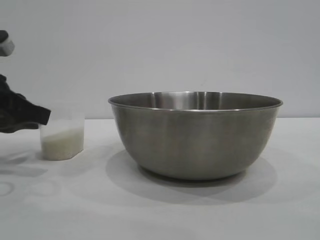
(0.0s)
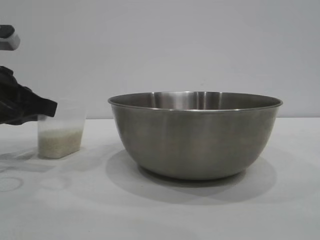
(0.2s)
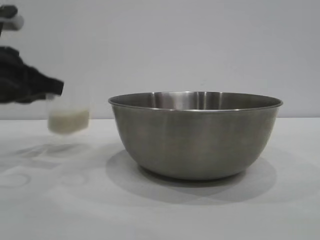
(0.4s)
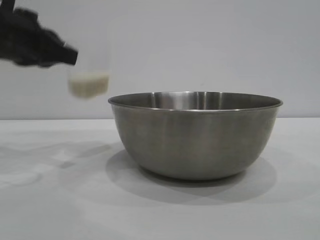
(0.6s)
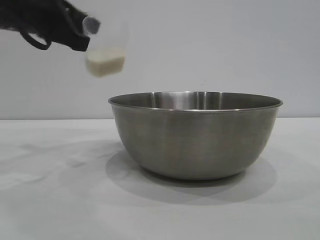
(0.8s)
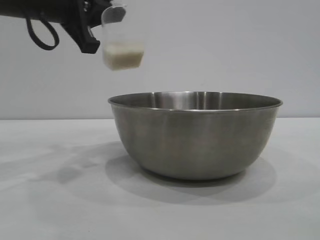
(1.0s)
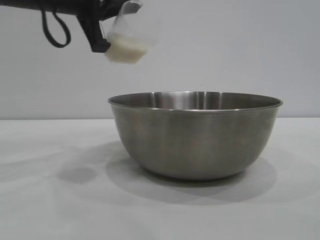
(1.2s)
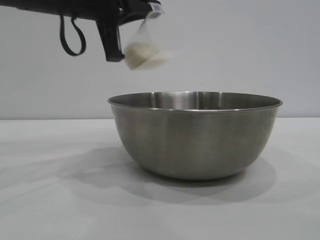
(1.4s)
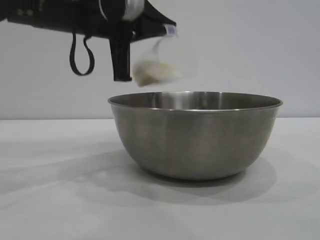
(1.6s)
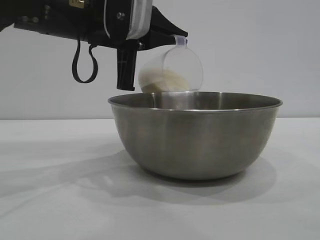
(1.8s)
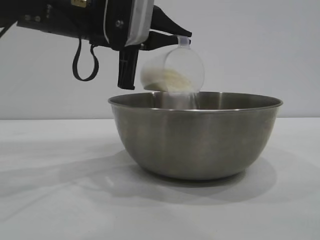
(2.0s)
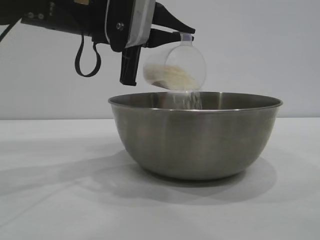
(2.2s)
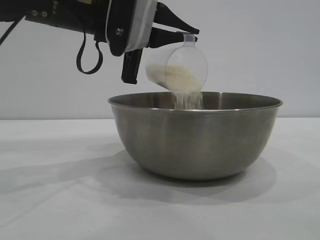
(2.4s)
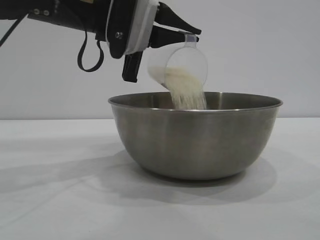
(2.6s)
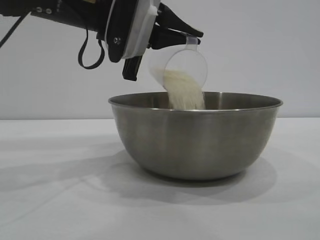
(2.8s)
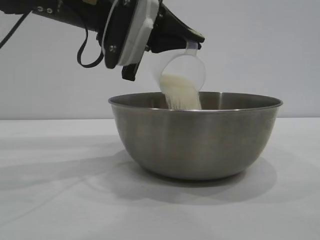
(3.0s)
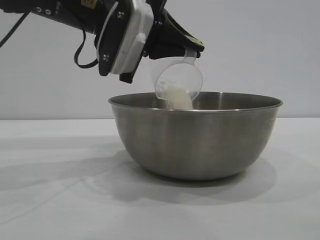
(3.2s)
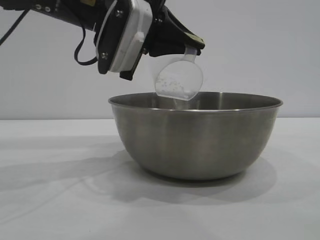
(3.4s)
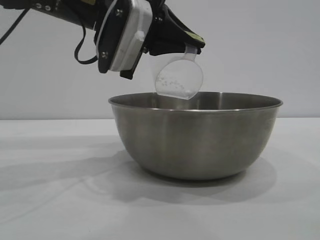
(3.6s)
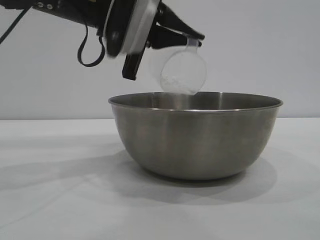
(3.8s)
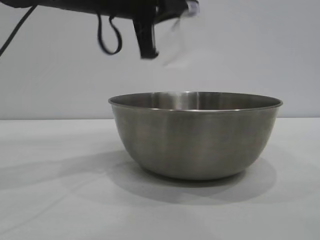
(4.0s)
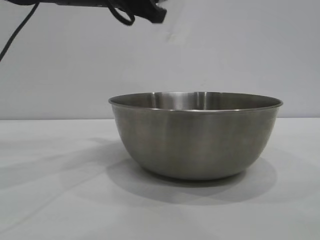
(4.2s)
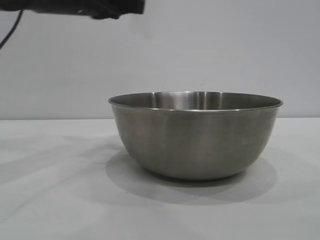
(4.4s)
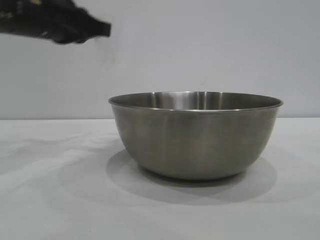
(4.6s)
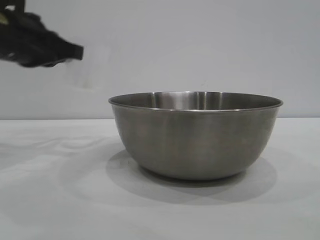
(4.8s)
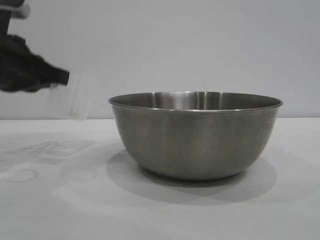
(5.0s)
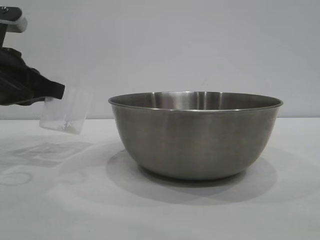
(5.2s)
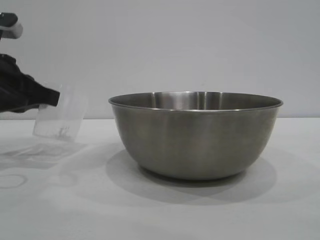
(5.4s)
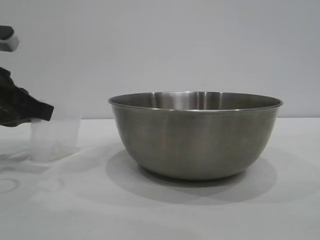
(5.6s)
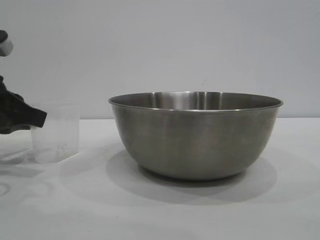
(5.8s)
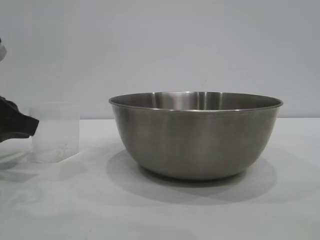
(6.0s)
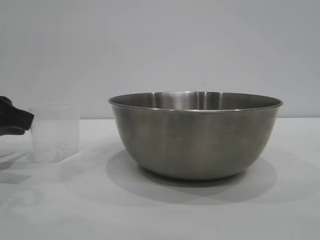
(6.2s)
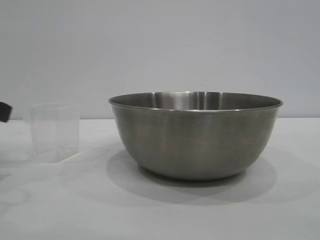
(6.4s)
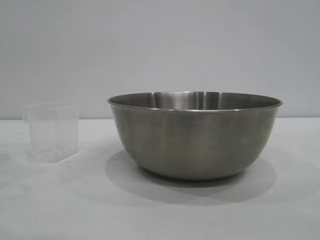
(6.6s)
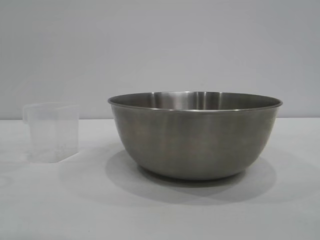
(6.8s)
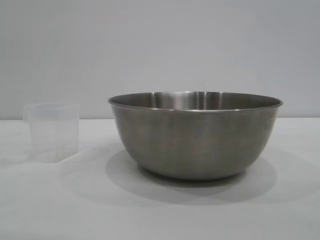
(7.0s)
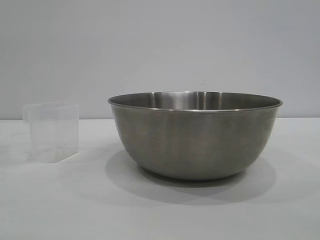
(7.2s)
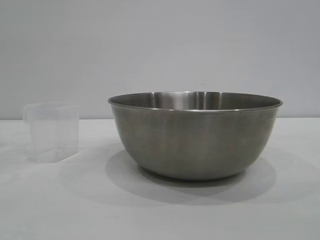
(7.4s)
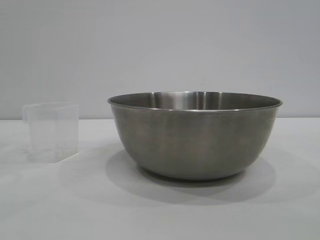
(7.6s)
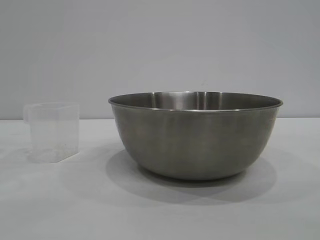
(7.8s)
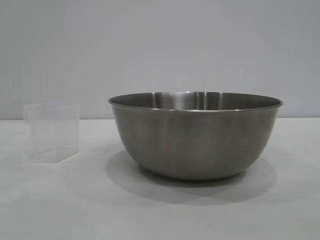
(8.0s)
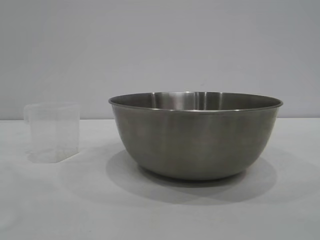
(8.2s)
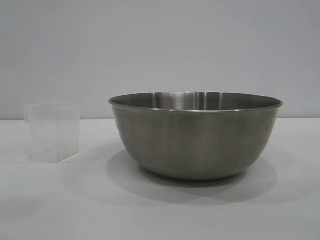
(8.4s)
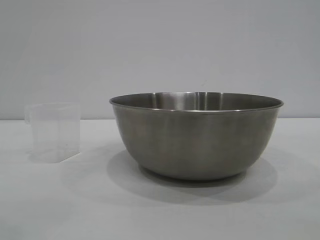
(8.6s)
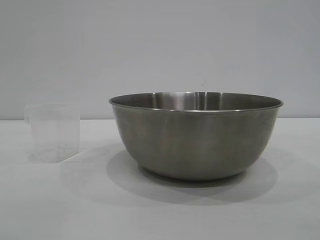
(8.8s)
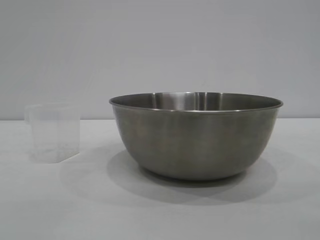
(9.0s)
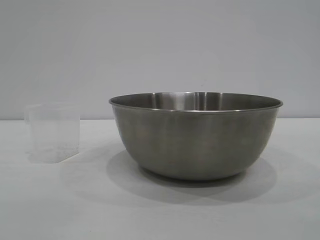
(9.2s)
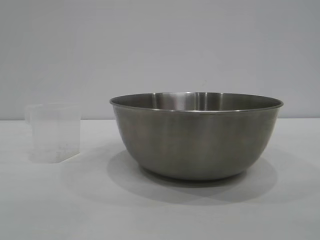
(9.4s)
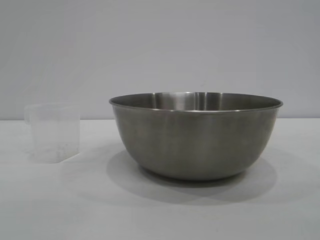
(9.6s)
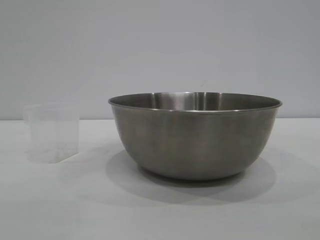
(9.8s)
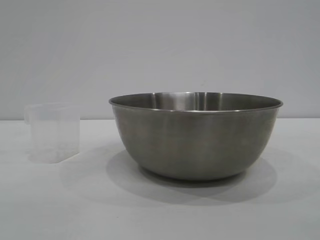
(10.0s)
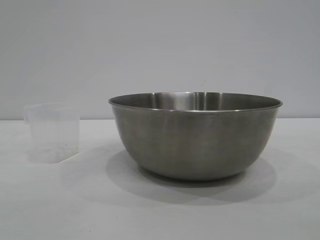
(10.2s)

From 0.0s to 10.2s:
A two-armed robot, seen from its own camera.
Task of the whole recording: the right gripper grasp the rice container and place it in the center of the table, the left gripper grasp the rice scoop and pour the rice into the rice container.
Step, from 0.6s to 4.0s: Pour the rice from the cup into the bowl with the left gripper.
Step, from 4.2s to 6.2s: Place the cup on the table with the left gripper.
